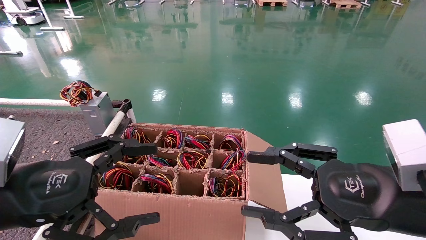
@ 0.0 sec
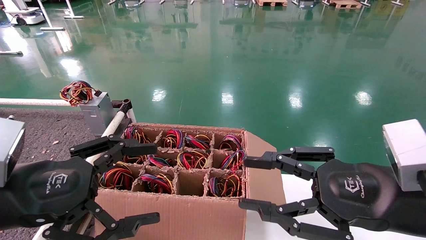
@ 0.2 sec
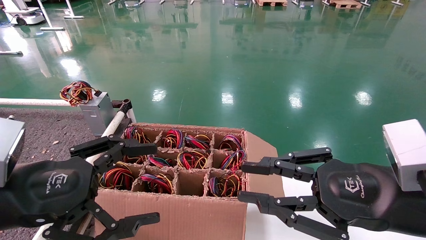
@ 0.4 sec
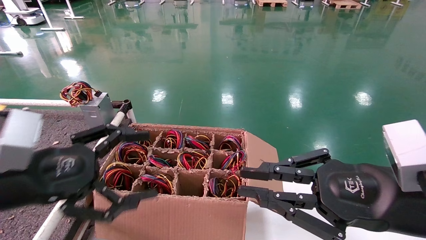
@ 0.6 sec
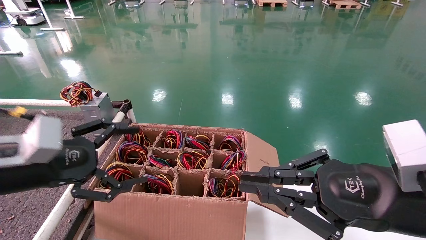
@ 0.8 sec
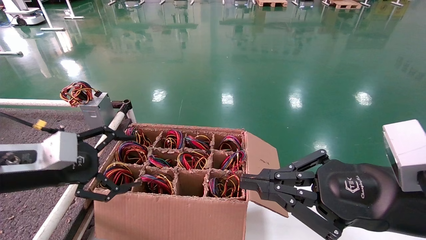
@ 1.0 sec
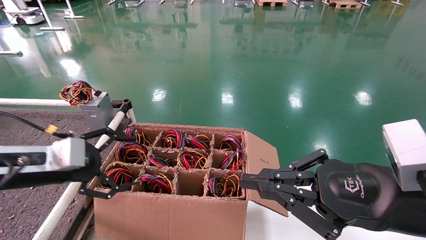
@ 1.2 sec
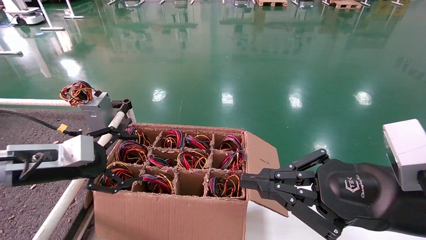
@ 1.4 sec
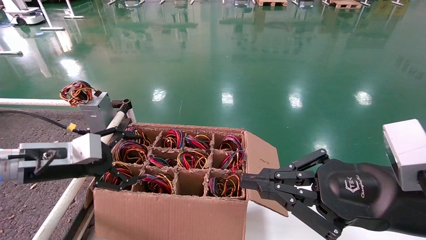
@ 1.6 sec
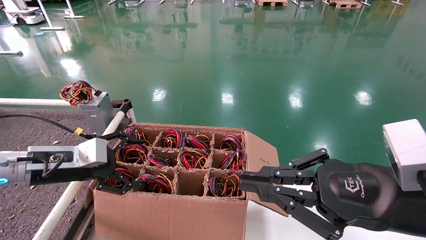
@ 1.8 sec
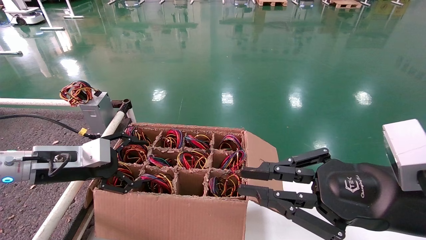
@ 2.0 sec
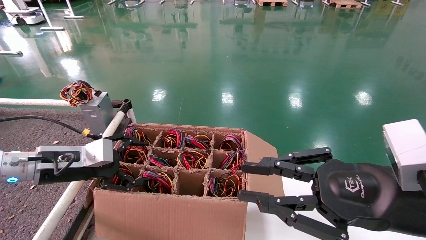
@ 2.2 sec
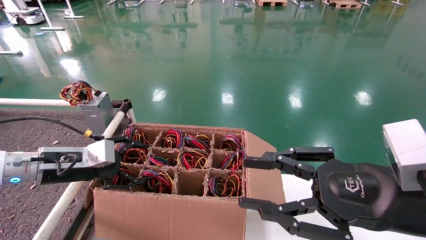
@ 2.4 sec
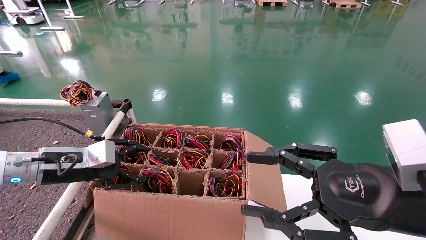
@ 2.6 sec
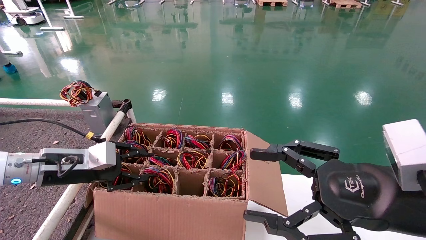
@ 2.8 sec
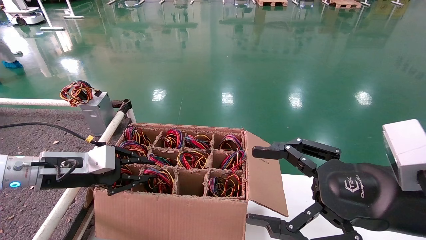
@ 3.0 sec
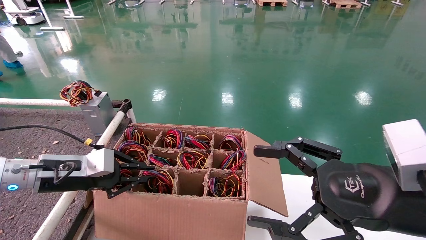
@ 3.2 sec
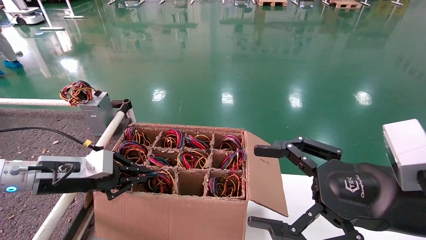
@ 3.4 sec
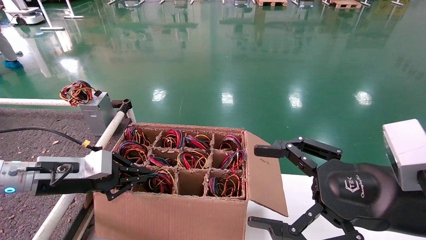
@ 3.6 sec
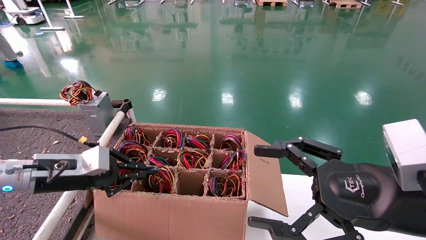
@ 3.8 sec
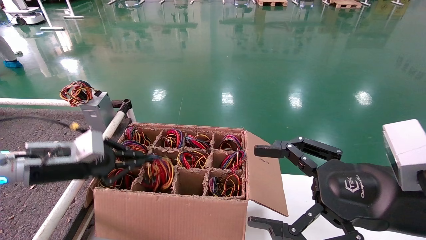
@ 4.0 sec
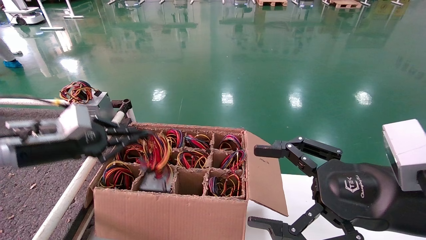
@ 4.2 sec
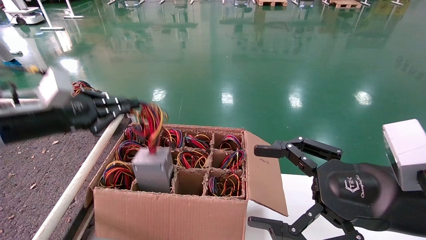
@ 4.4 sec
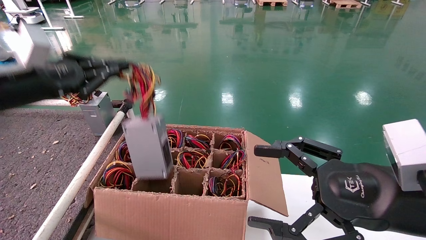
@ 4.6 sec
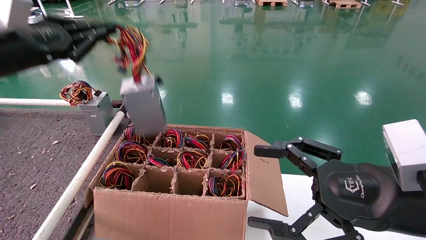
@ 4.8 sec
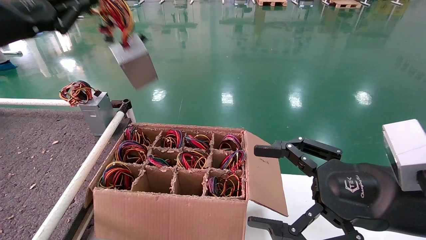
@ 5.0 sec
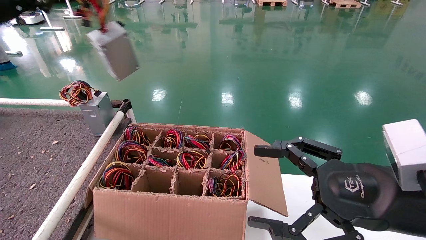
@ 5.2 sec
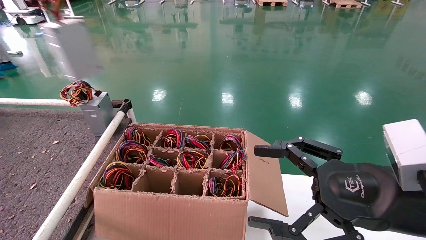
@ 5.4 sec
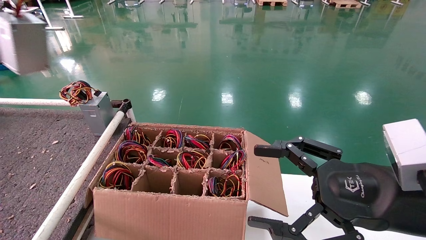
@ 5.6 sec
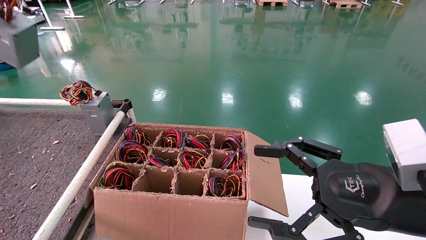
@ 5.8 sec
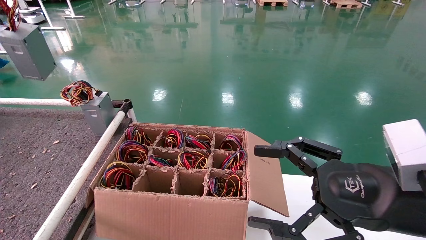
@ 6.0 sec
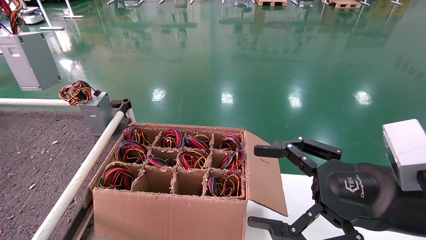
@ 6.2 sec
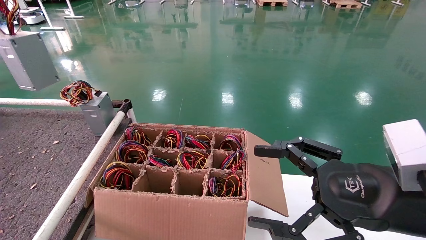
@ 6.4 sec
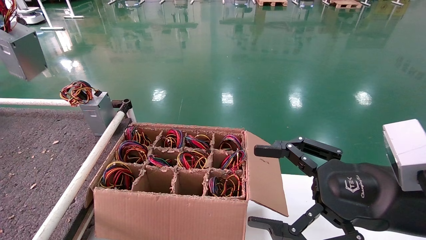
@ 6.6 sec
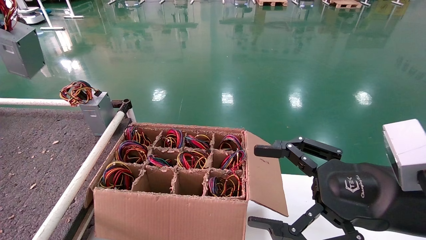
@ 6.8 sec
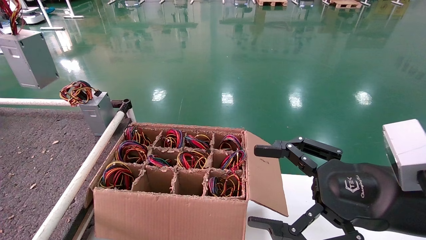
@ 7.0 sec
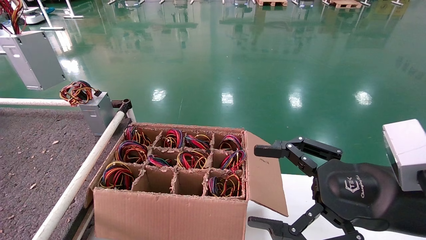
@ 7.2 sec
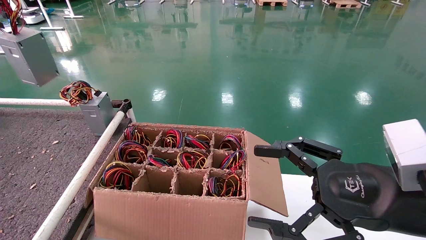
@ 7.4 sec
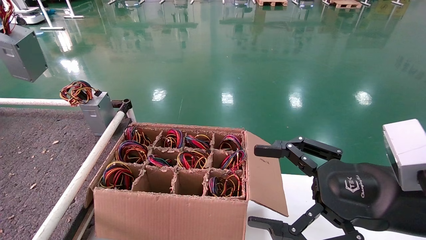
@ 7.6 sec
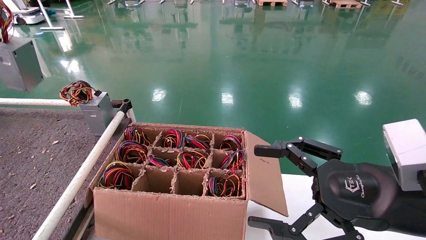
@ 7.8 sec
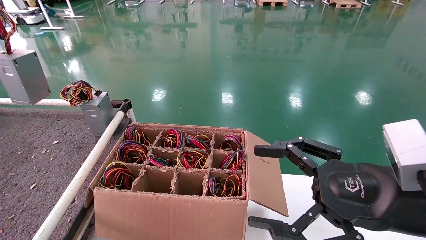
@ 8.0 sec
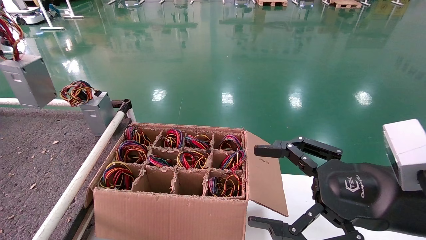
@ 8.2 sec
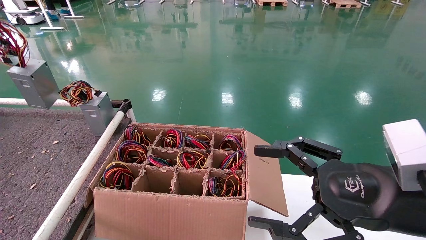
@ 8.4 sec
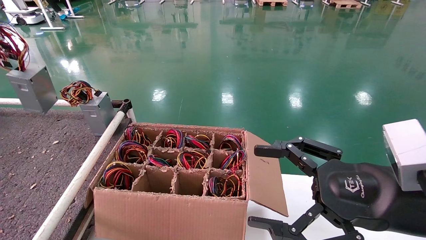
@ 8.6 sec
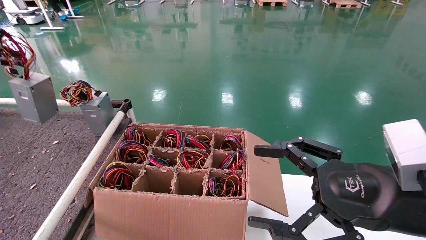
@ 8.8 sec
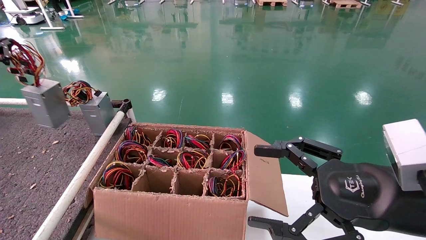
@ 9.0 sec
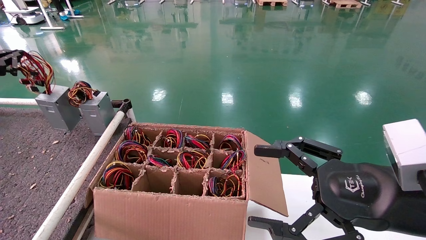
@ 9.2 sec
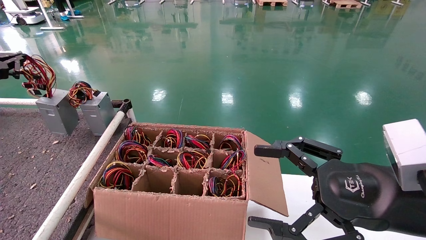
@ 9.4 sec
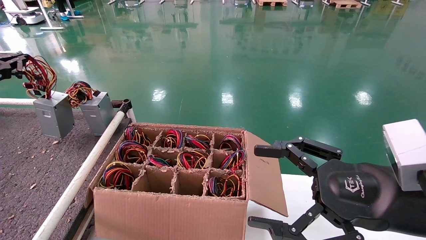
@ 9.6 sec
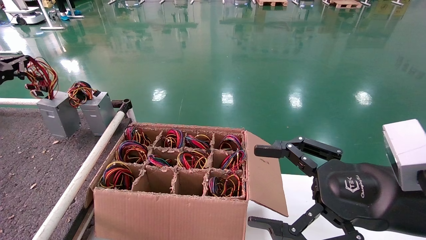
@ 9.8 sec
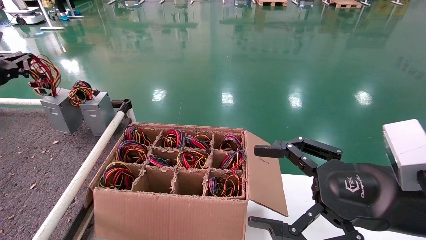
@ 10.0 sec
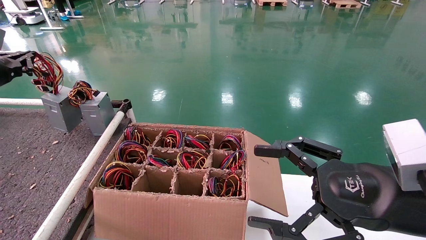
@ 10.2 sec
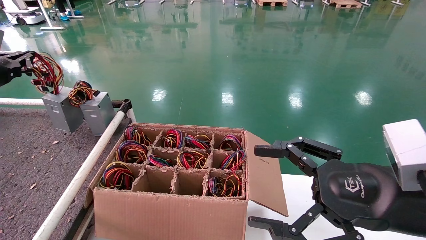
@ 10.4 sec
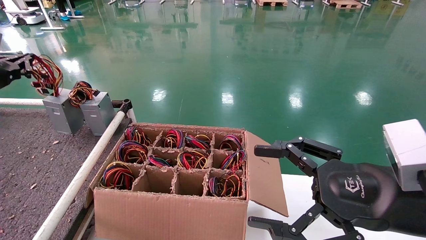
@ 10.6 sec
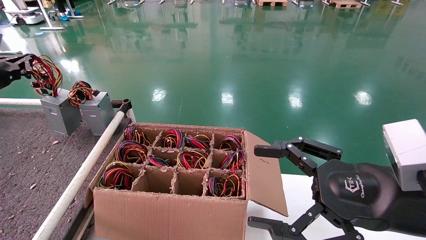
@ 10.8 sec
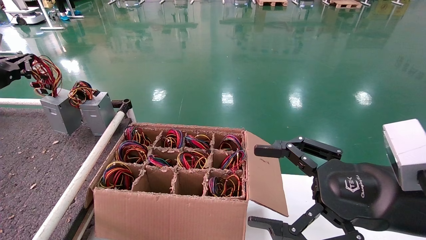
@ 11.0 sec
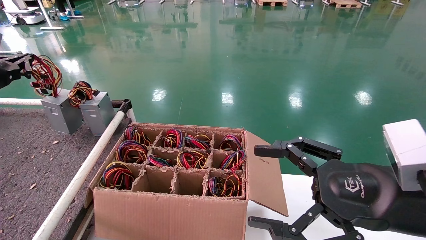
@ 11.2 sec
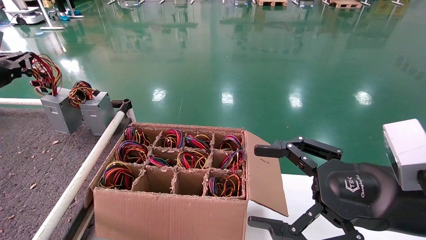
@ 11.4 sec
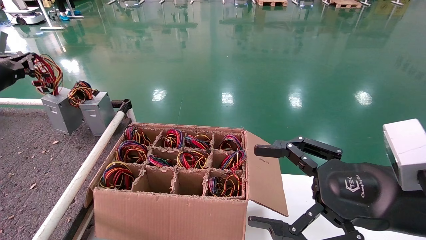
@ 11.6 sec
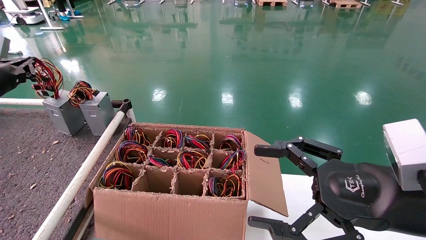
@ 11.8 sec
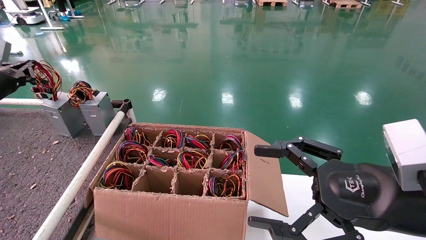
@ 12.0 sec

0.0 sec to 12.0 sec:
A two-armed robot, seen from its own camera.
Step, 0.8 sec to 3.8 sec: Grab and lift the power supply from the large box.
0.0 sec to 1.6 sec: The right gripper closes its fingers, while the left gripper shifts about 15 cm forward.
1.6 sec to 3.0 sec: The left gripper closes its fingers. Meanwhile the right gripper opens.
3.0 sec to 4.4 sec: The left gripper heads upward, covering approximately 10 cm, and closes up.
4.4 sec to 6.0 sec: The left gripper heads upward and to the left, covering some 25 cm.
6.0 sec to 7.6 sec: The grippers make only small movements.
7.6 sec to 9.0 sec: The left gripper is displaced downward by approximately 10 cm.
9.0 sec to 10.4 sec: The grippers stay close to where they were, moving slightly.
10.4 sec to 12.0 sec: There are only small adjustments of the grippers.

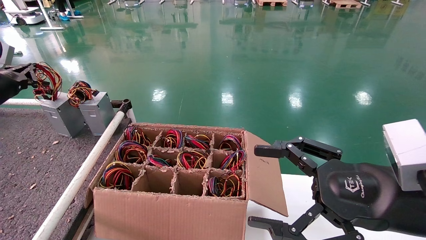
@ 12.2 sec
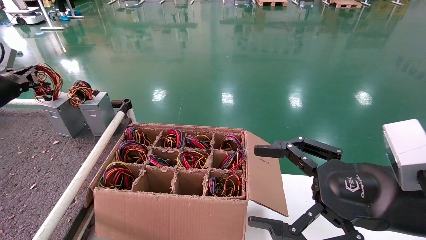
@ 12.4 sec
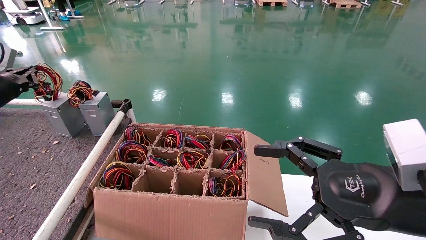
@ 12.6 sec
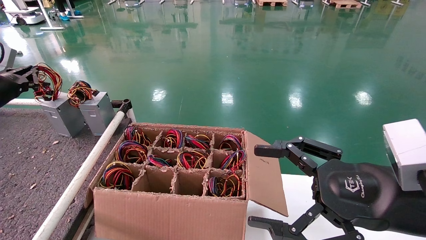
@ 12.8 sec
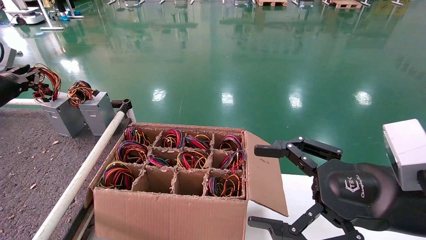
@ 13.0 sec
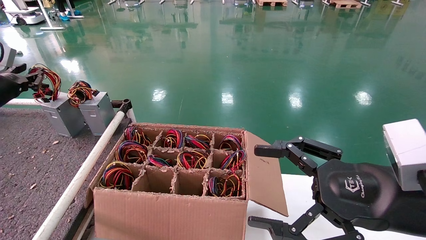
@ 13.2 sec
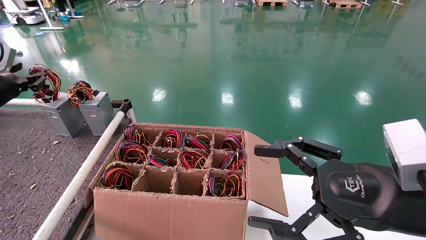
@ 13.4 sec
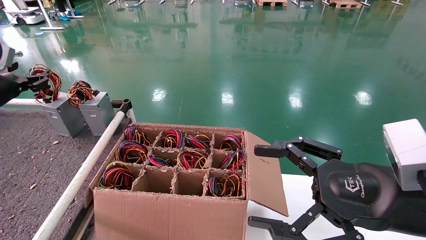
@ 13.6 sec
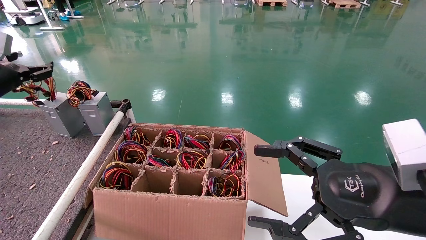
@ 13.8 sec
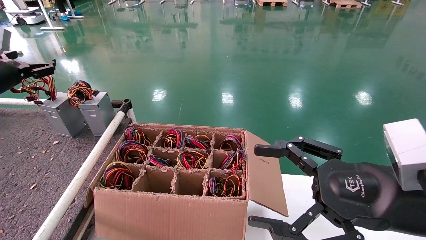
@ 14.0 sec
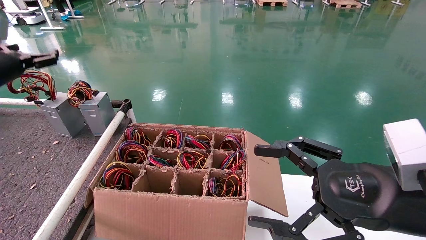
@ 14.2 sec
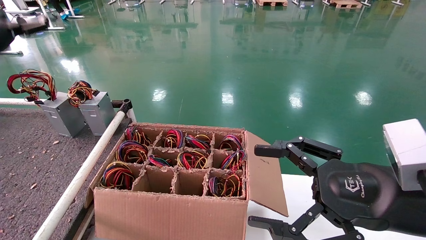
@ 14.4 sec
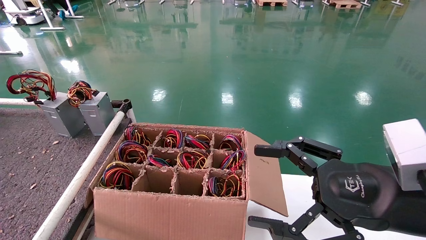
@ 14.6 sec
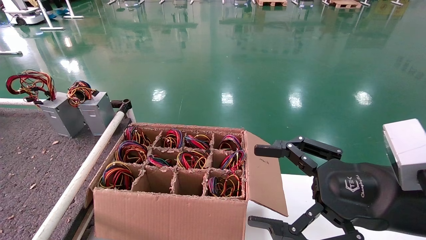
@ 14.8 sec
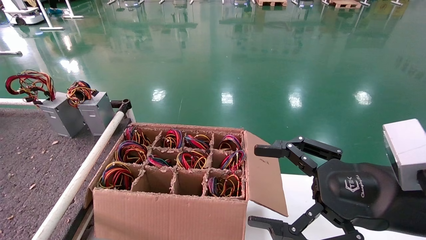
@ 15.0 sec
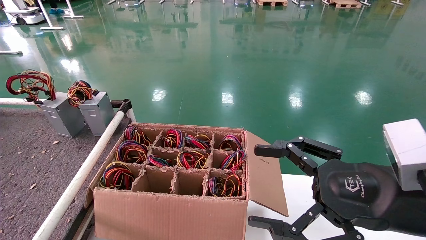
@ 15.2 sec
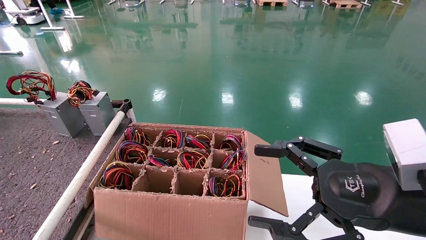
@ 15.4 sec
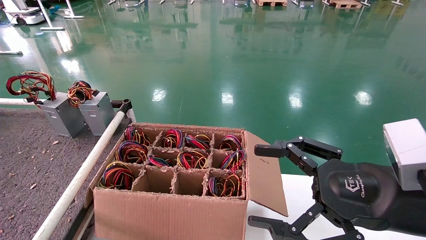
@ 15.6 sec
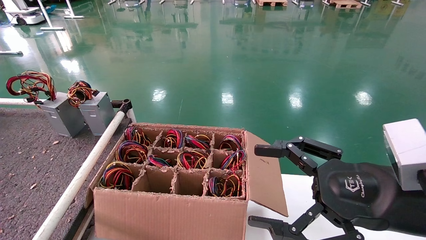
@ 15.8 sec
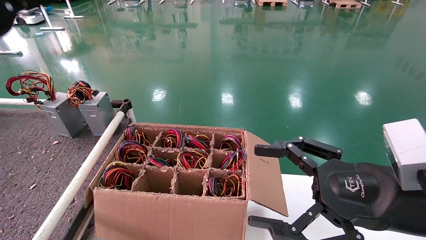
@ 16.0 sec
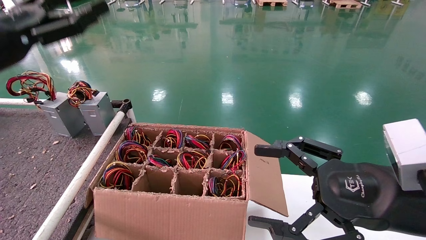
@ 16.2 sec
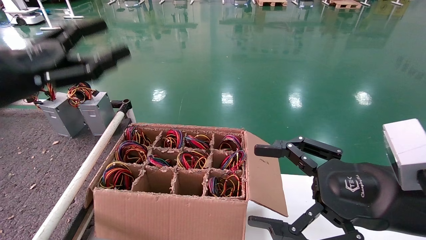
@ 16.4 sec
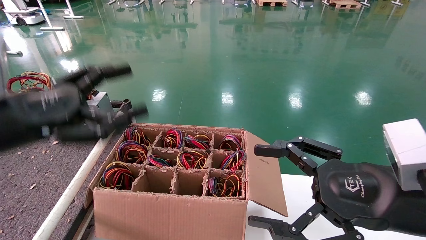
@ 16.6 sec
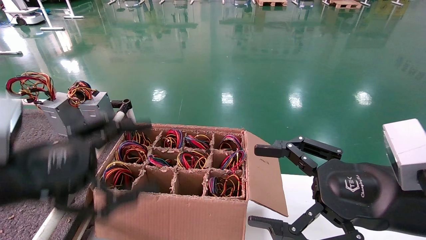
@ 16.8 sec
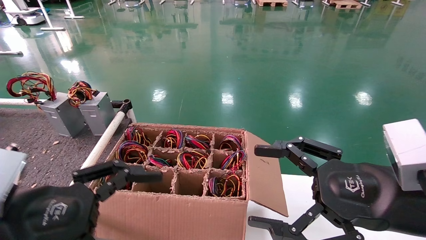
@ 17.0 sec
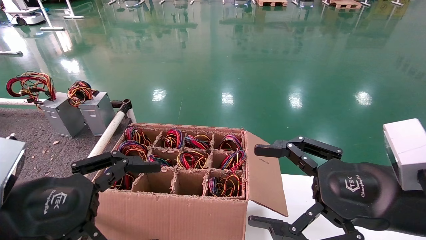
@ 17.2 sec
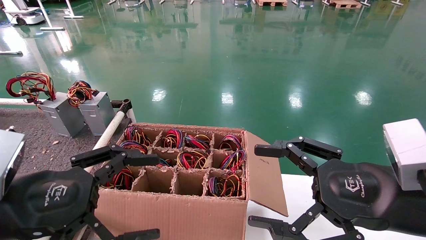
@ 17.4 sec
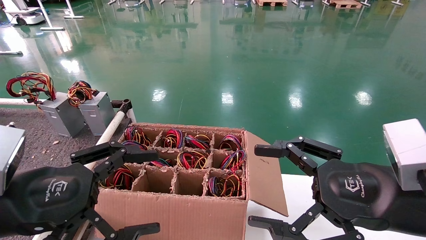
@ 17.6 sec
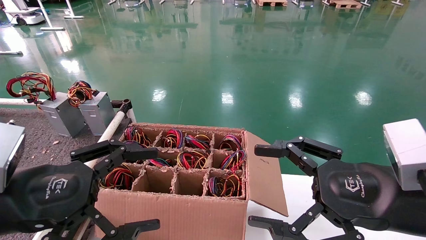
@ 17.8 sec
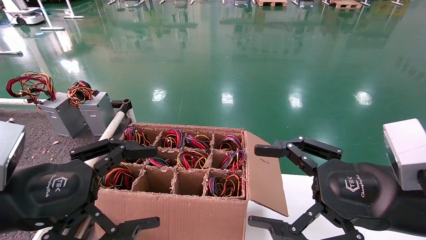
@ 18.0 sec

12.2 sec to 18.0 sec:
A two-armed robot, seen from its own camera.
12.2 sec to 13.6 sec: The left gripper opens.
13.6 sec to 15.0 sec: The left gripper travels upward by roughly 20 cm, and opens.
15.0 sec to 16.6 sec: The left gripper moves downward, backward and to the right, roughly 30 cm.
16.6 sec to 18.0 sec: The left gripper is displaced downward by approximately 5 cm.
